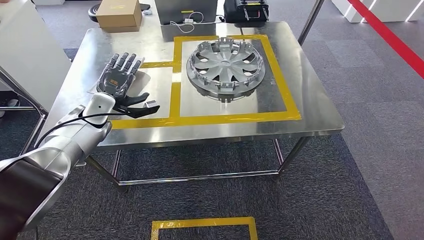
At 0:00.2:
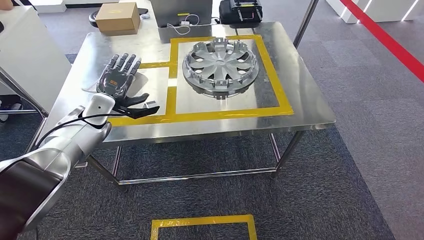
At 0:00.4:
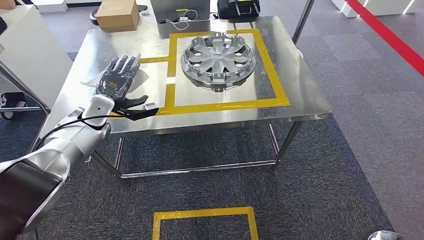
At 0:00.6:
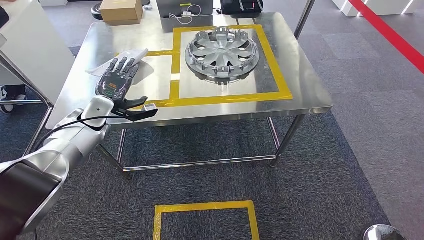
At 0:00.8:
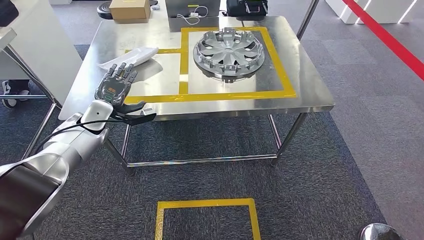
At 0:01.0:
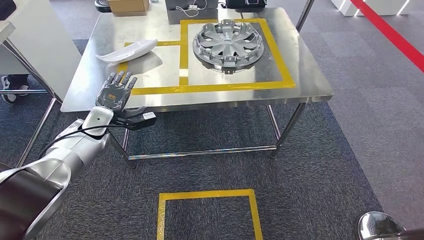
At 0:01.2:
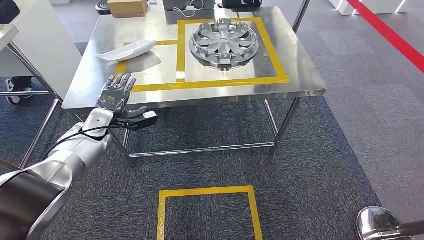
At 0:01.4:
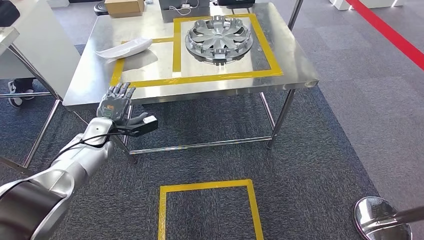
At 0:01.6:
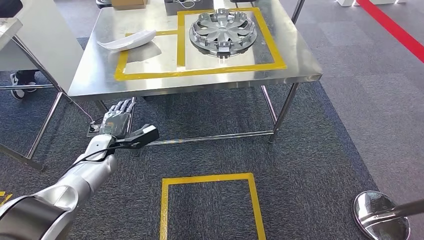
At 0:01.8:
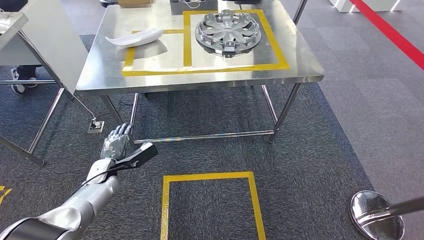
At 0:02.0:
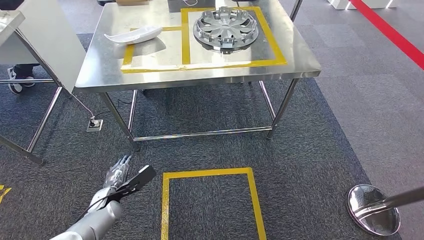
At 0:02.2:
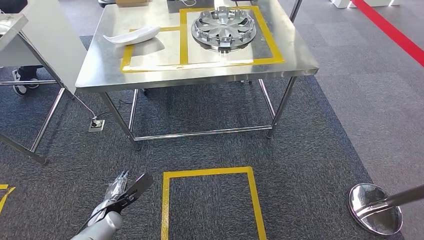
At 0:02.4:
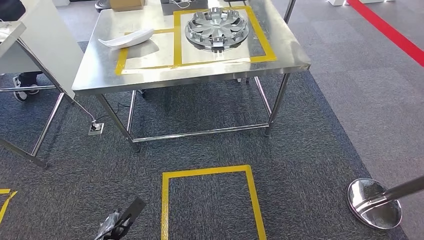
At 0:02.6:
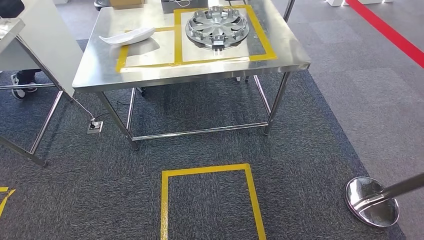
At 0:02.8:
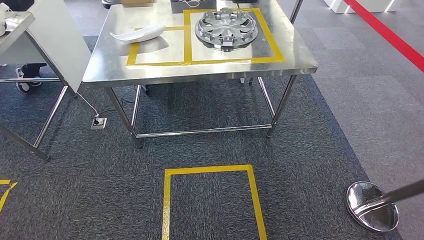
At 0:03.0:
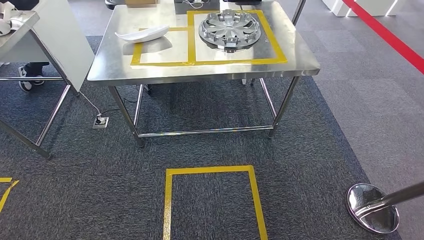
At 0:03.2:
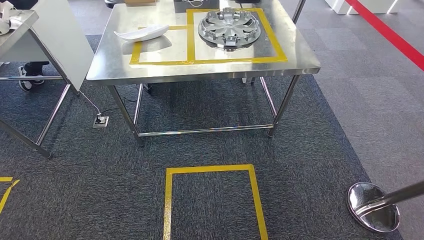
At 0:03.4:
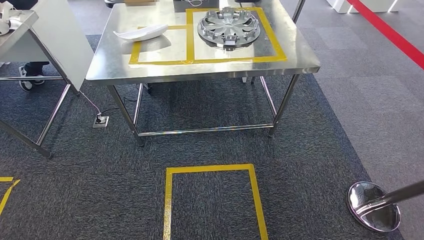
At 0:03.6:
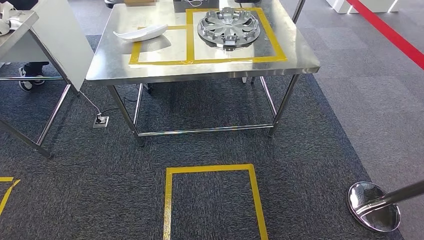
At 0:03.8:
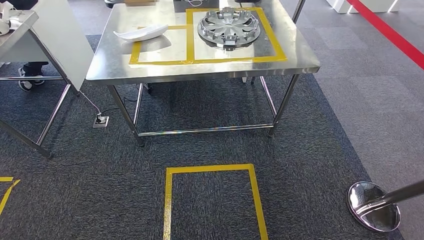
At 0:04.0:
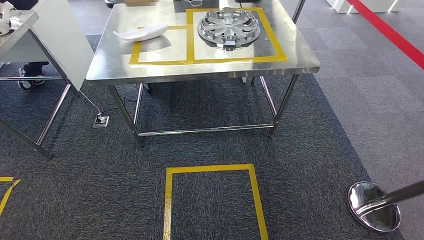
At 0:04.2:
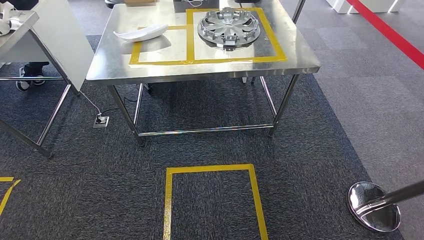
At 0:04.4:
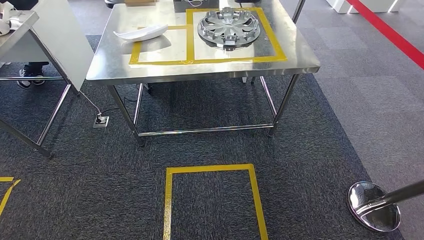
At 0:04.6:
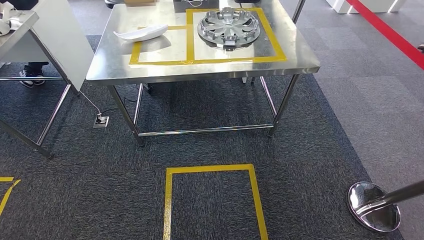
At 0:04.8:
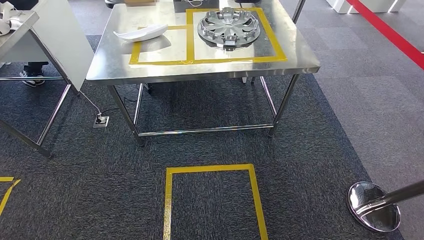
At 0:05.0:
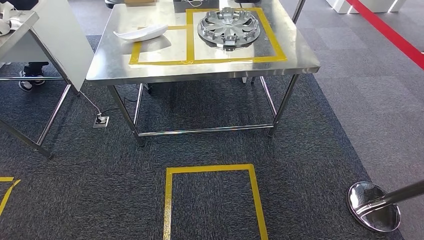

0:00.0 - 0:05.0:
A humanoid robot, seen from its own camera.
Step, 0:00.0 - 0:05.0: Return to the initial position at the workbench.

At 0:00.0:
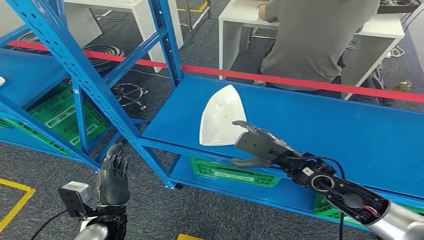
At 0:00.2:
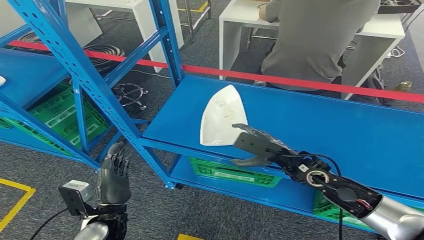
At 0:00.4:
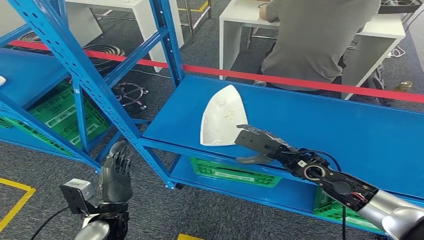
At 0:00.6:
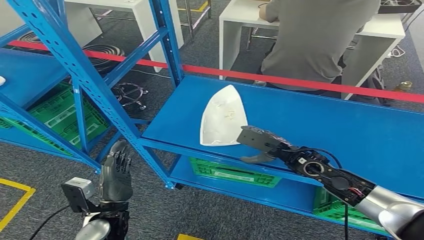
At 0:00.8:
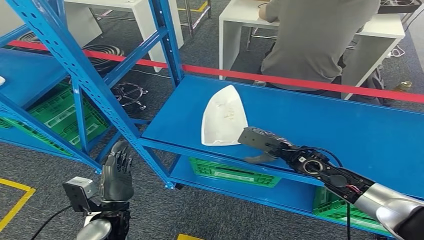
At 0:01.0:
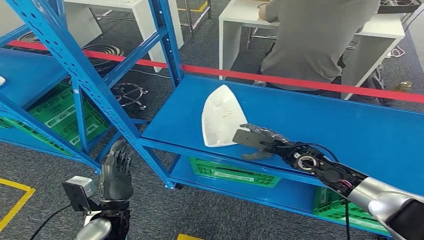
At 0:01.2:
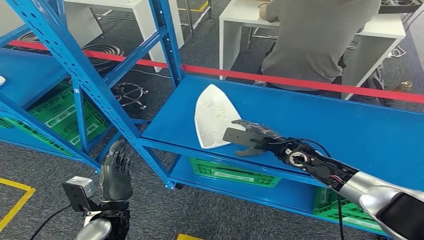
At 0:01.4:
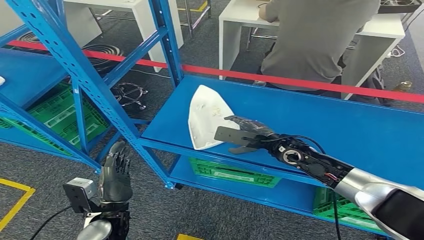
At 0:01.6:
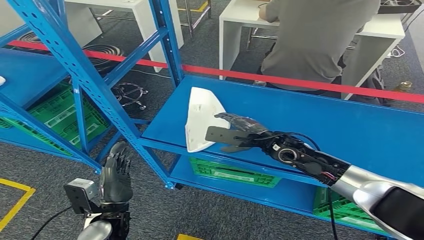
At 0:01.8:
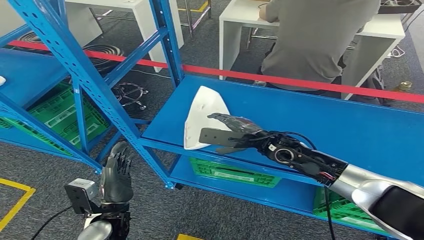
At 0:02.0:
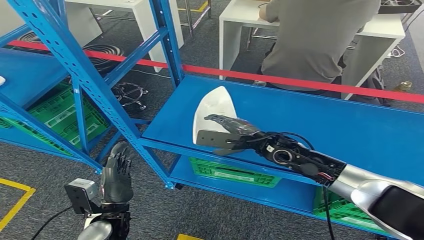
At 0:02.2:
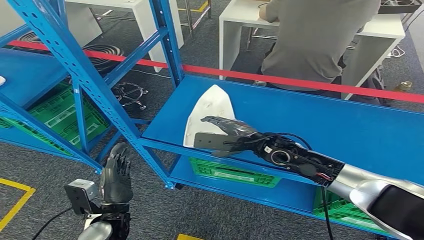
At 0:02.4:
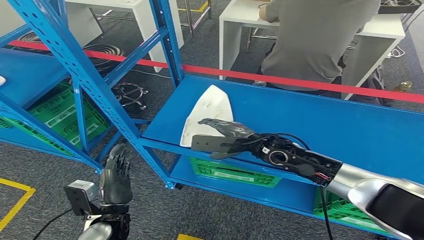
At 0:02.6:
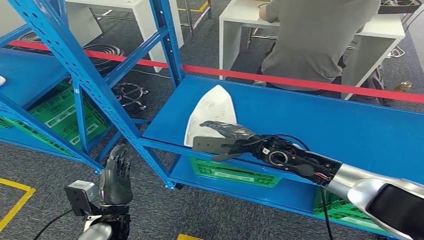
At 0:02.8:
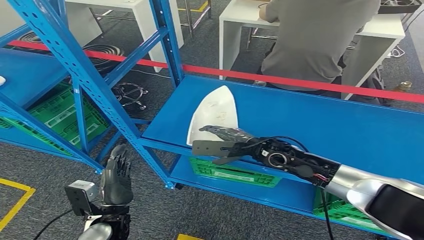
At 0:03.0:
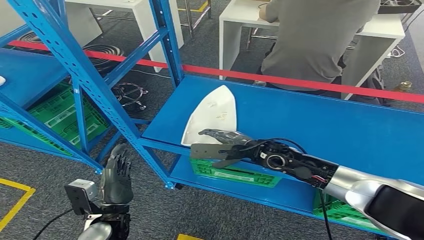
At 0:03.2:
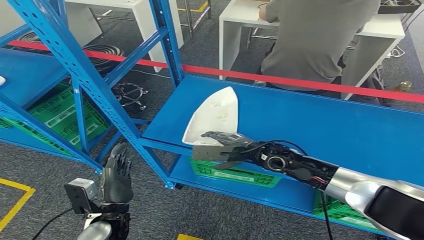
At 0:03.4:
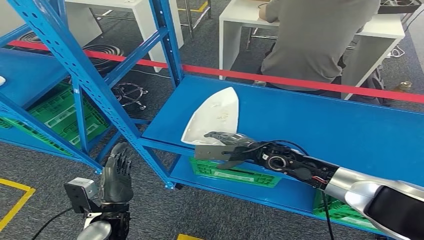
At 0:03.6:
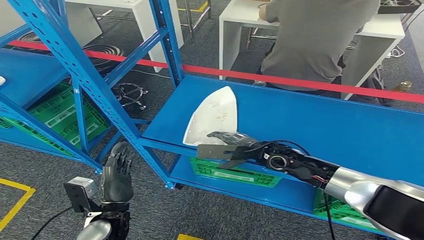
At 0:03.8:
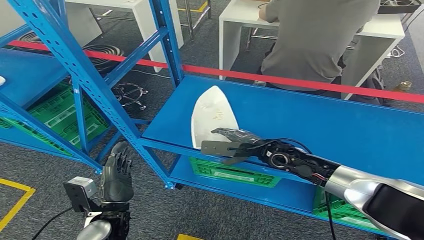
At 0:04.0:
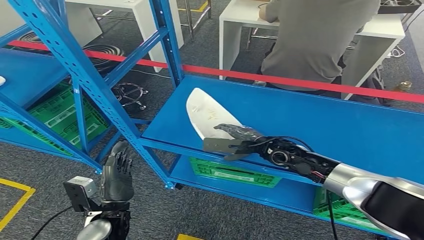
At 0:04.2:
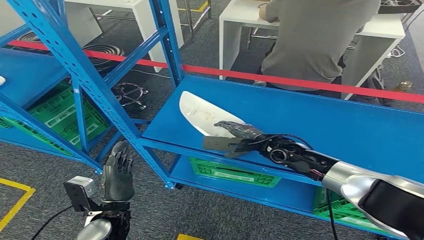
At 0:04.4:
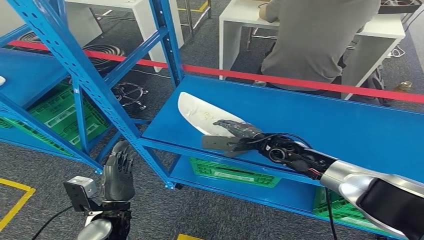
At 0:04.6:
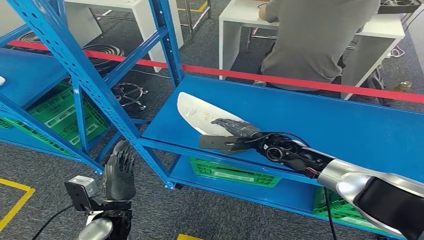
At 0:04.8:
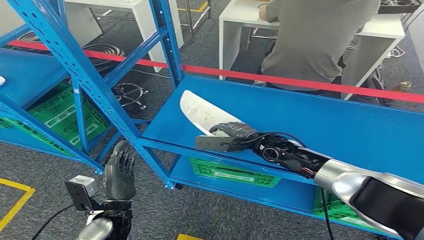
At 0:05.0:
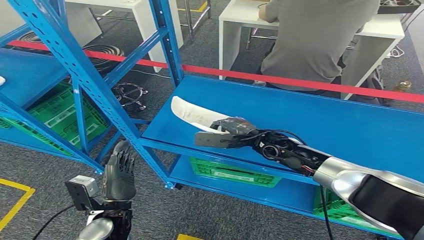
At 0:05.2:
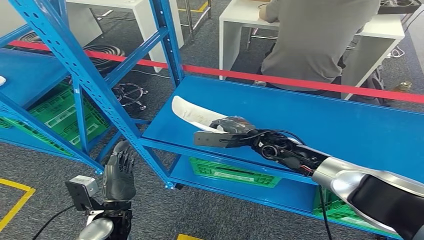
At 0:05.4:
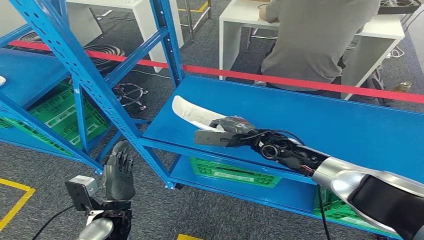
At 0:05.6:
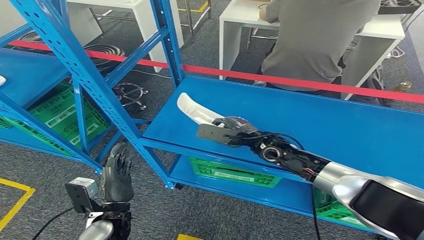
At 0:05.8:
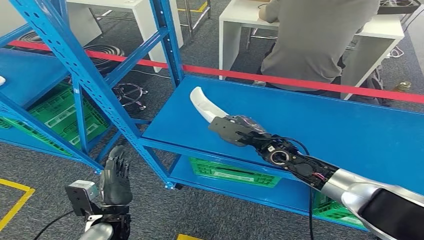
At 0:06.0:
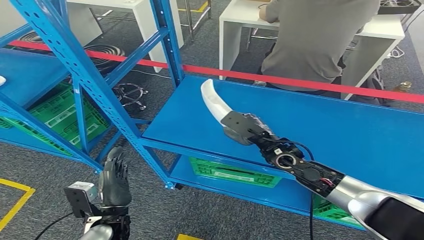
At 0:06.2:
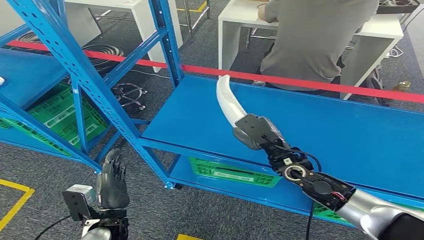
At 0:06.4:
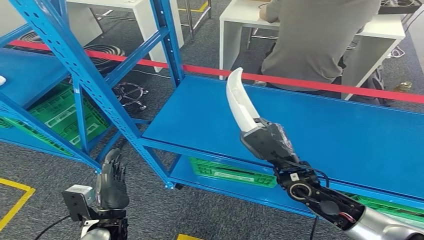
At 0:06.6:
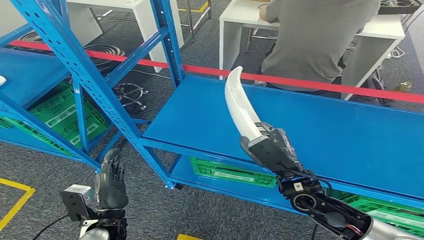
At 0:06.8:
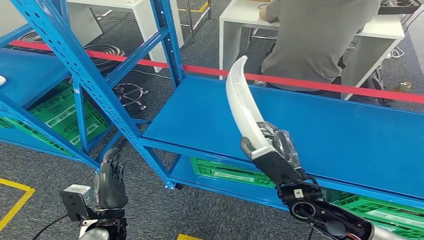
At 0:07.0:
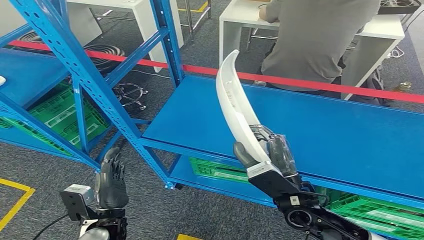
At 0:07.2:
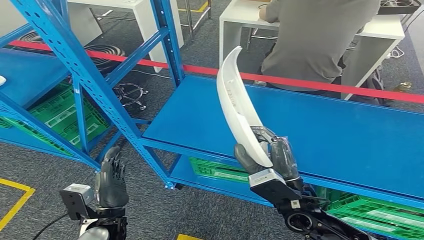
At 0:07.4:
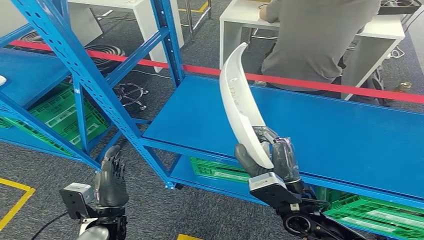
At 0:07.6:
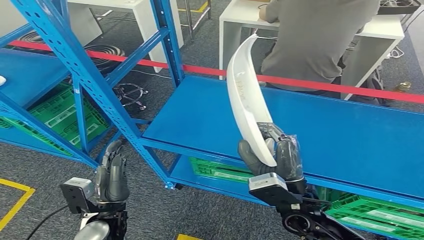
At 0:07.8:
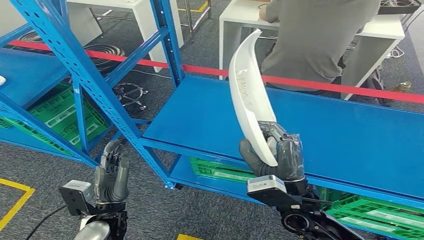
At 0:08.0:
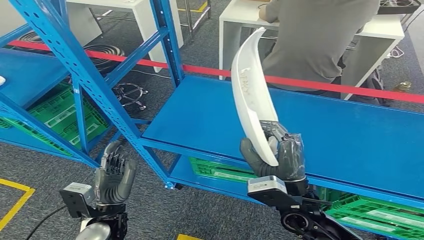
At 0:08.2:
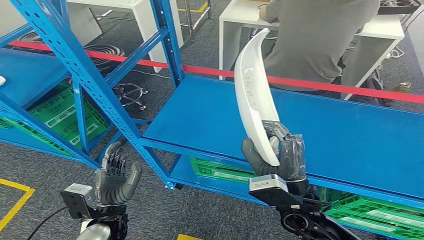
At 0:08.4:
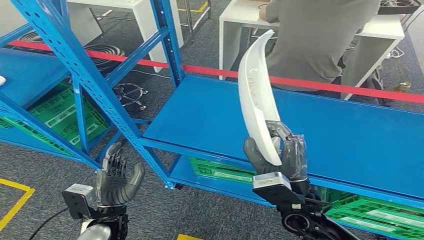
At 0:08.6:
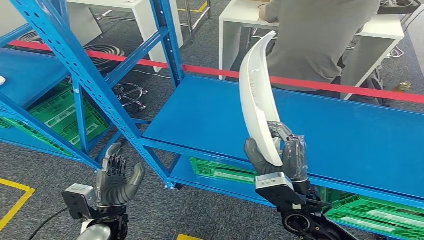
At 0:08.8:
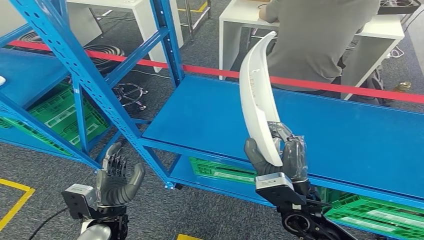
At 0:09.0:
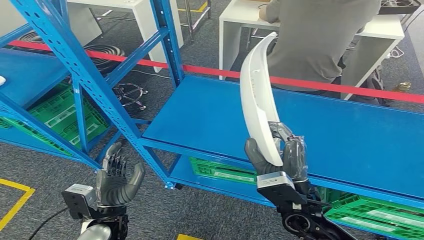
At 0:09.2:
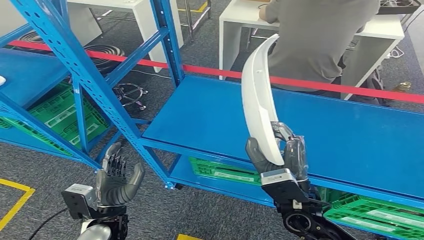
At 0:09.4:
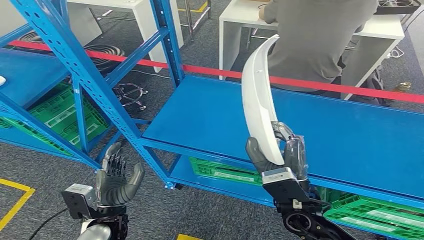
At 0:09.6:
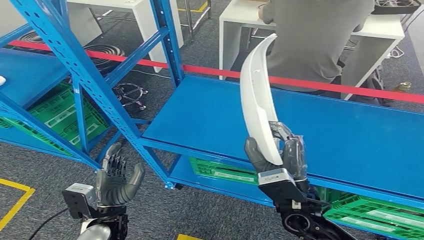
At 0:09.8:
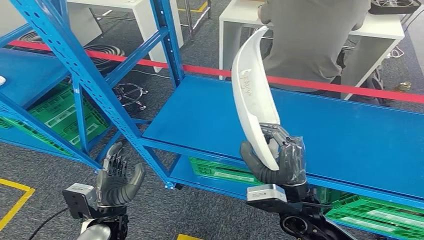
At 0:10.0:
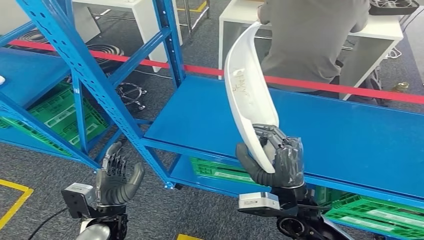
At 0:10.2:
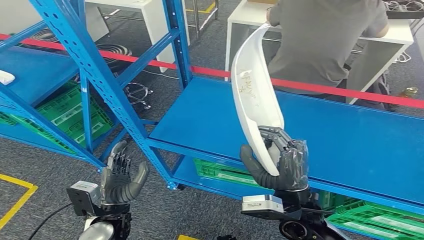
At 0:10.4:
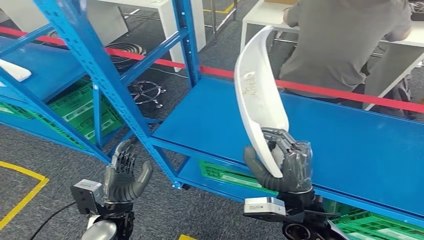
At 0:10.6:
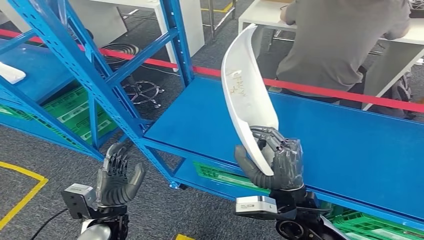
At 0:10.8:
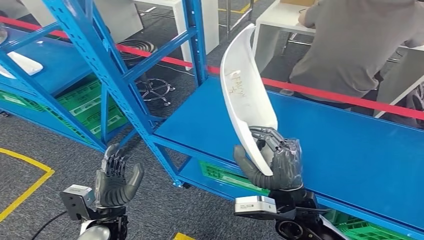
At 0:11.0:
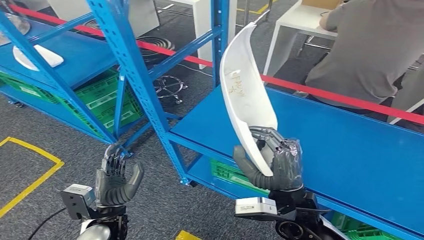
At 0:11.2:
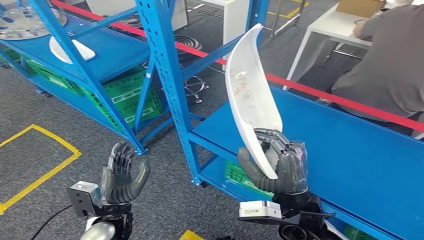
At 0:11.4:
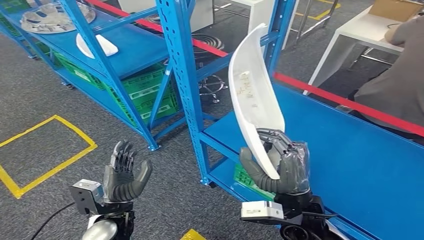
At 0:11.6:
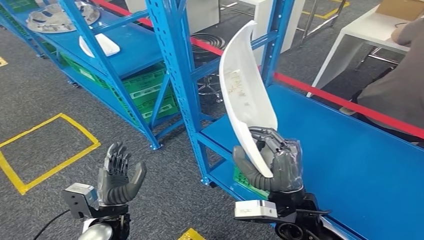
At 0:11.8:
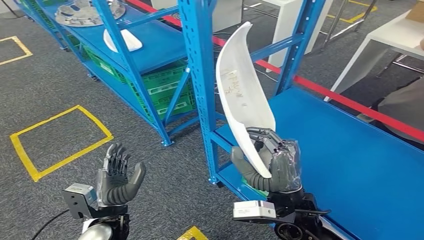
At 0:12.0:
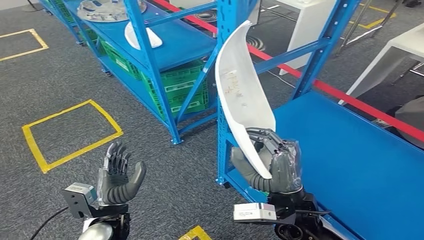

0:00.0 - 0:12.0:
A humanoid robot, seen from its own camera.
Step, 0:00.0 - 0:06.8: Pick up the small component from the shelf.
0:00.0 - 0:01.6: The right hand travels forward by some 10 cm.
0:01.6 - 0:04.4: The hands make only small movements.
0:06.0 - 0:07.6: The right hand heads backward, covering about 15 cm.
0:07.6 - 0:09.0: Both hands stay put.
